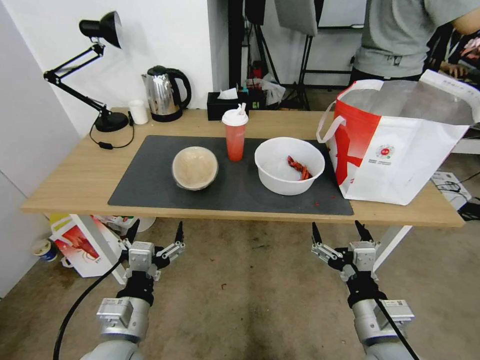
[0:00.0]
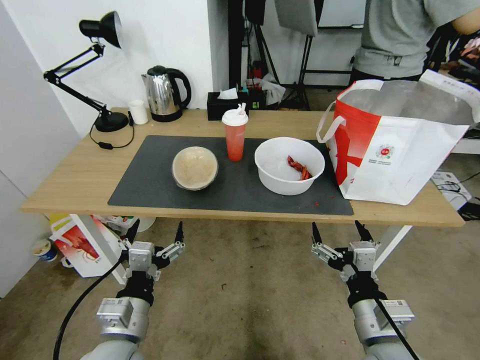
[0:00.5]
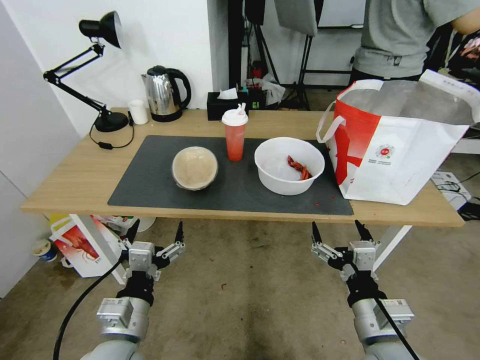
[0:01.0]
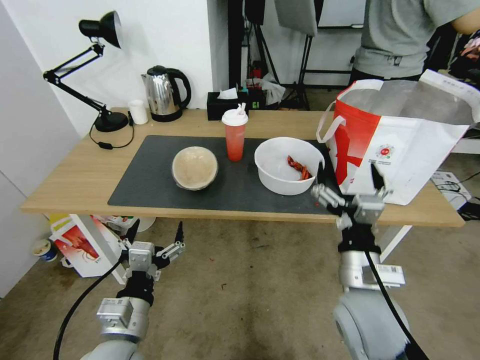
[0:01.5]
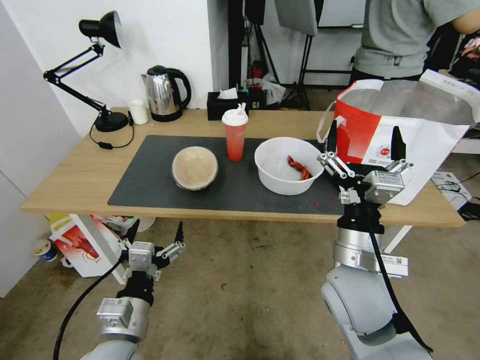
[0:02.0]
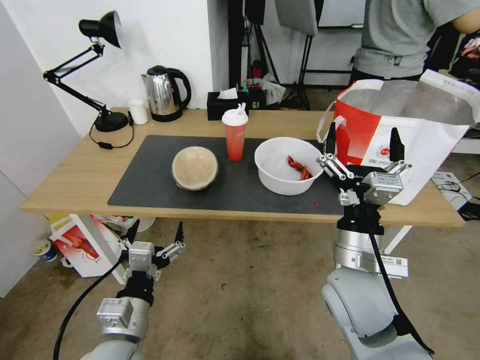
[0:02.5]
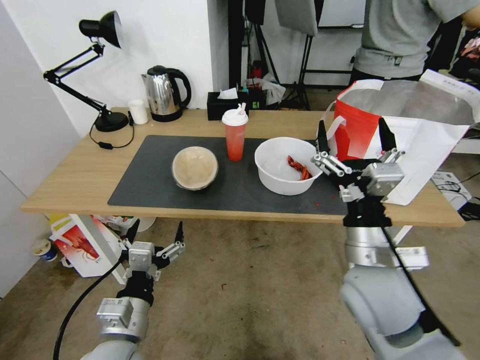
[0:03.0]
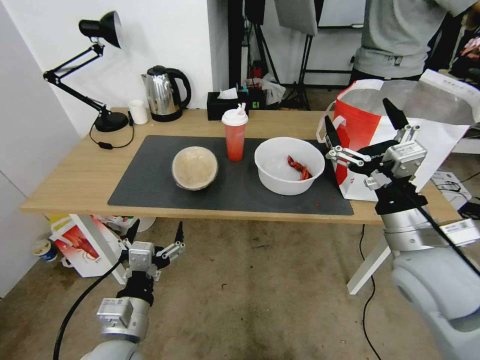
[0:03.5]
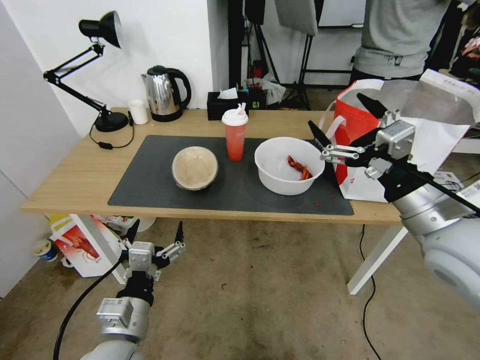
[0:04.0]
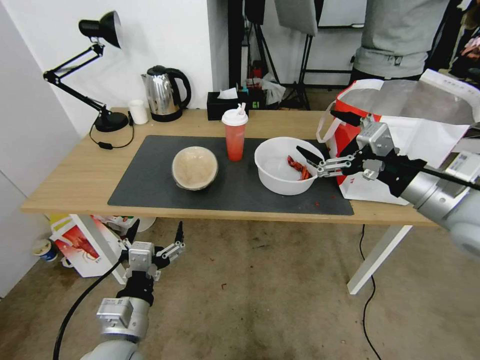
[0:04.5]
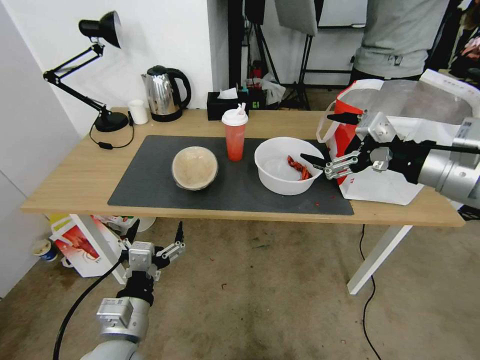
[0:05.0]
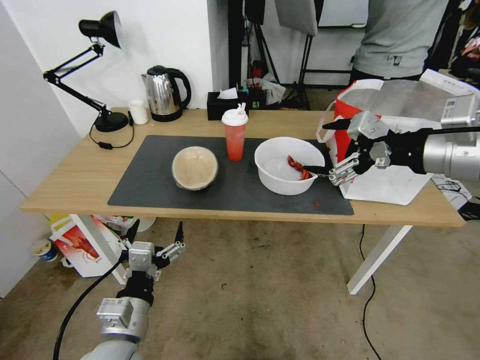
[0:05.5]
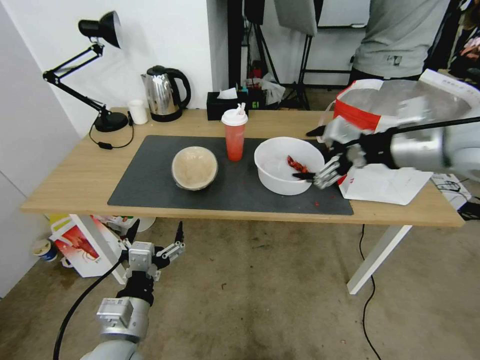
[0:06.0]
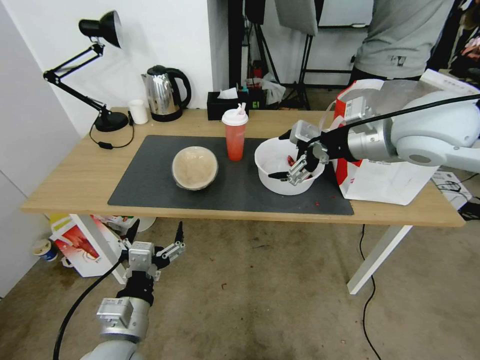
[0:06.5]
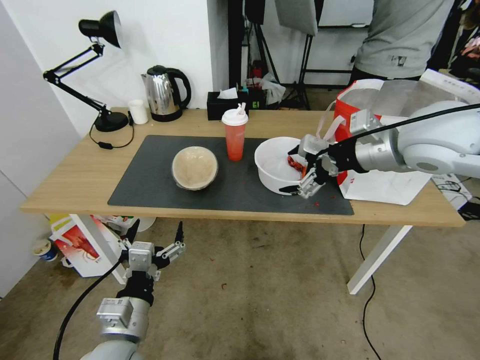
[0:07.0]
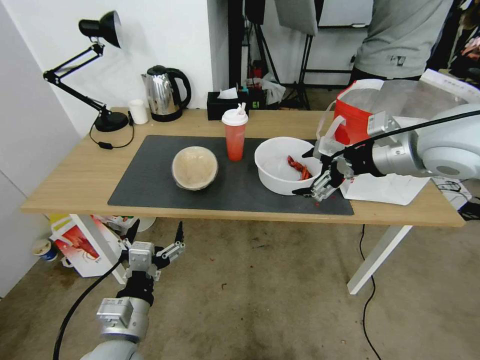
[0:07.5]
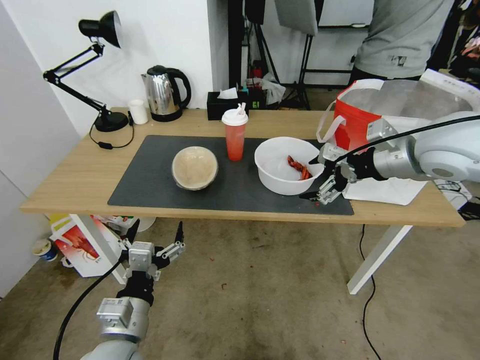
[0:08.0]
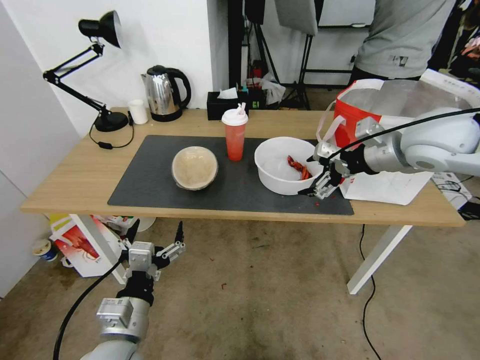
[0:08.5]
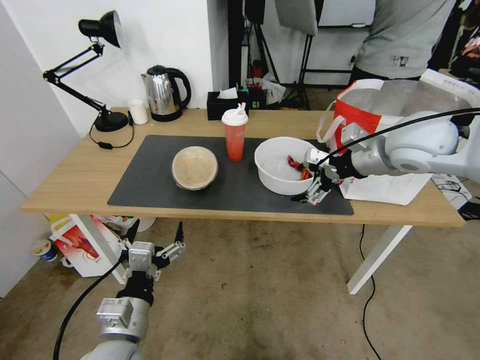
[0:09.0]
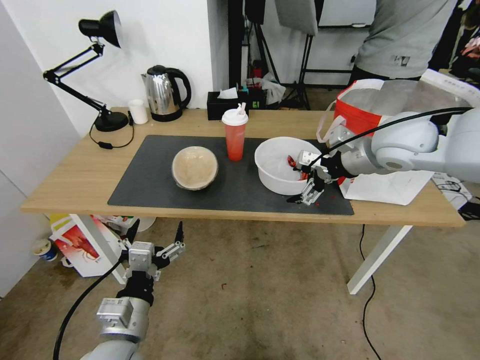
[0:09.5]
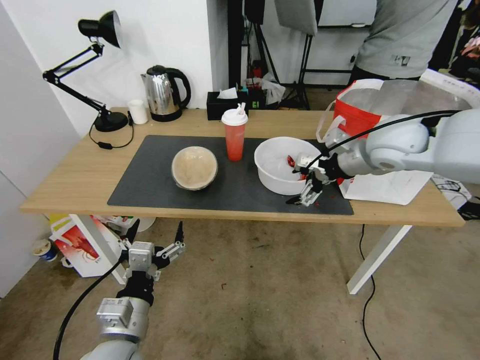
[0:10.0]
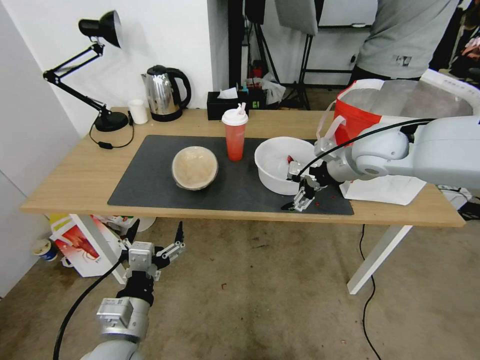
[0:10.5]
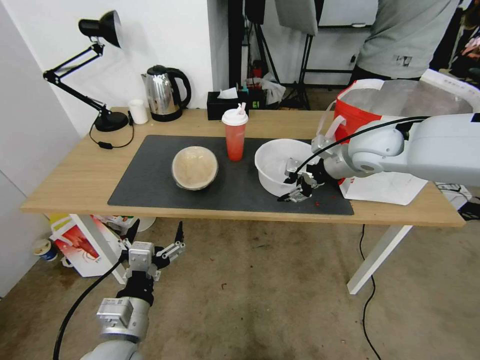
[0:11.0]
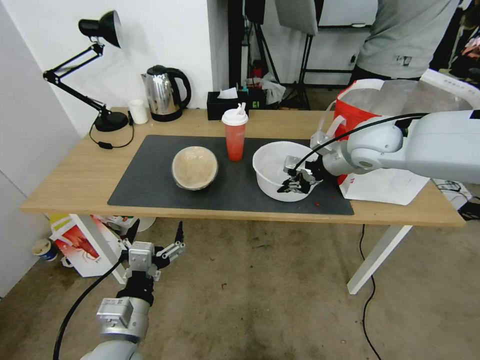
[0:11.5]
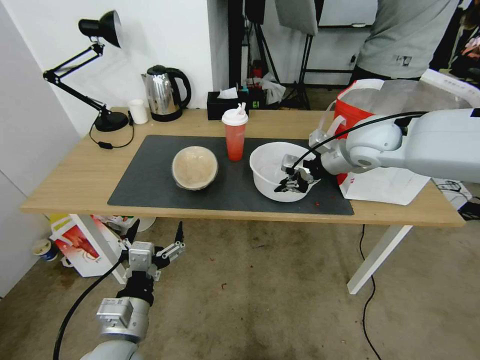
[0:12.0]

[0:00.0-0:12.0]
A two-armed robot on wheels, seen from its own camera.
Task of the whole recording: Pick up the trash from the table and place it into the takeout bag.
2.0 to 4.0 s: The right gripper is displaced to the right and upward by roughly 15 cm.
4.0 to 6.0 s: The right gripper travels upward and forward by about 15 cm.
6.0 to 8.0 s: The right gripper moves forward, approximately 5 cm.
8.0 to 10.0 s: The right gripper goes some 5 cm forward.
10.0 to 12.0 s: The right gripper closes its fingers.

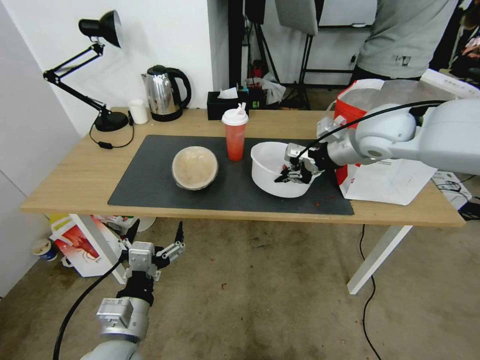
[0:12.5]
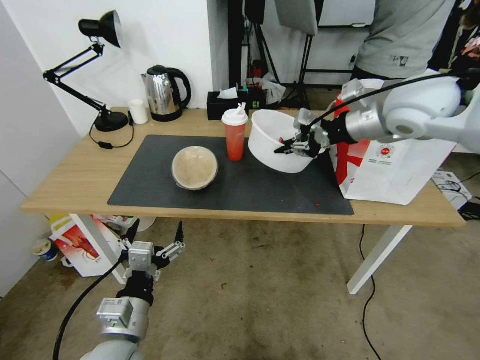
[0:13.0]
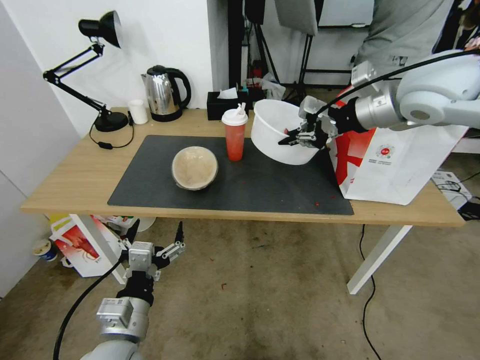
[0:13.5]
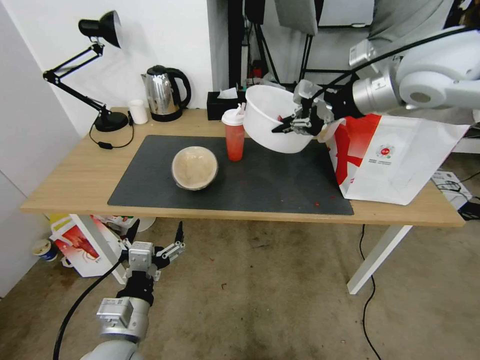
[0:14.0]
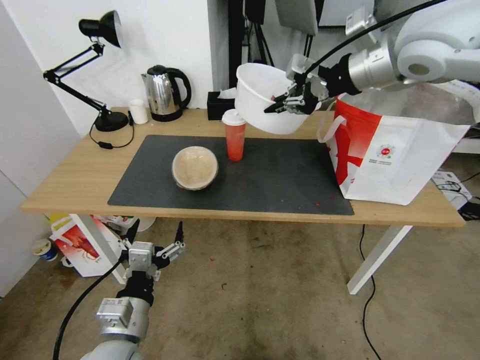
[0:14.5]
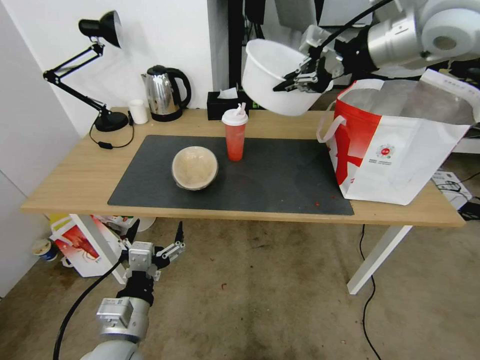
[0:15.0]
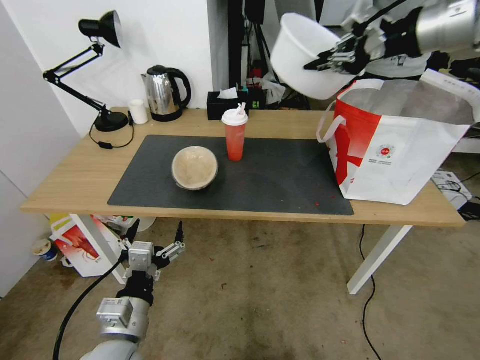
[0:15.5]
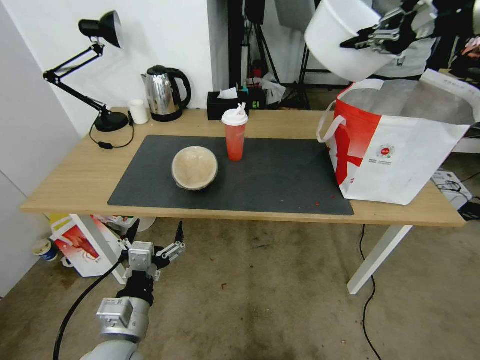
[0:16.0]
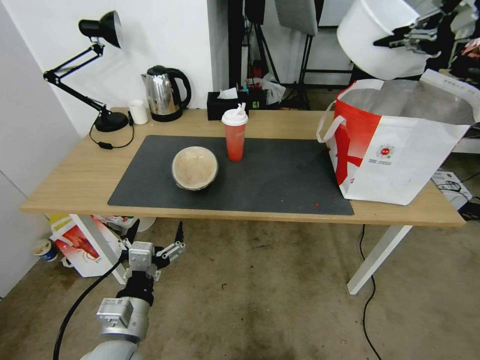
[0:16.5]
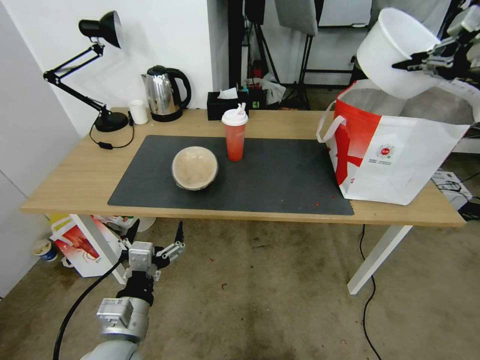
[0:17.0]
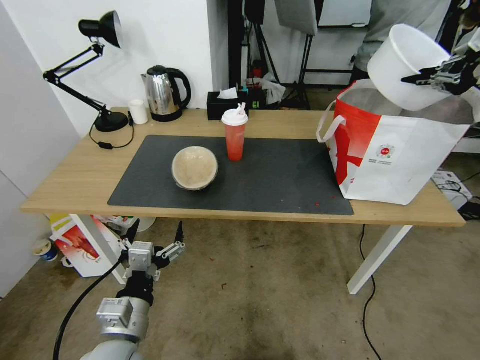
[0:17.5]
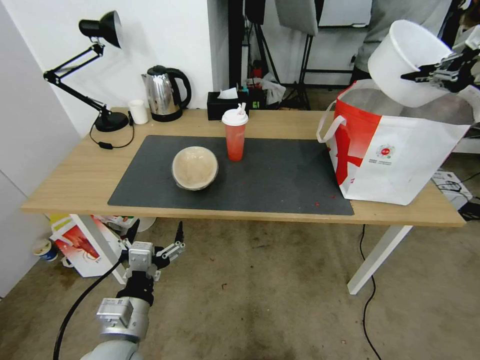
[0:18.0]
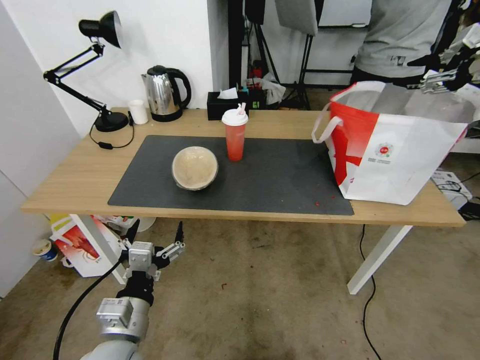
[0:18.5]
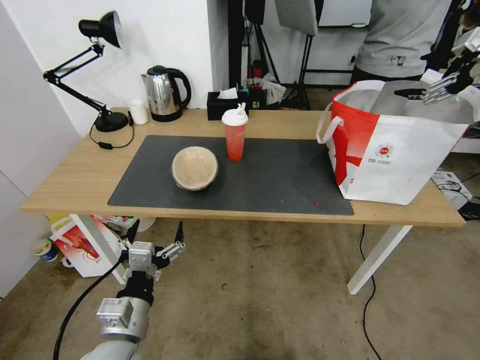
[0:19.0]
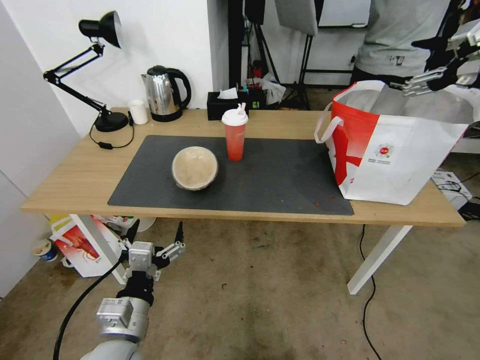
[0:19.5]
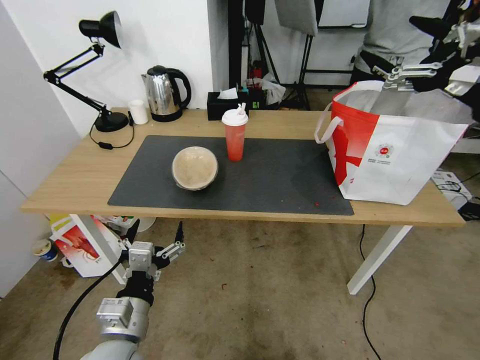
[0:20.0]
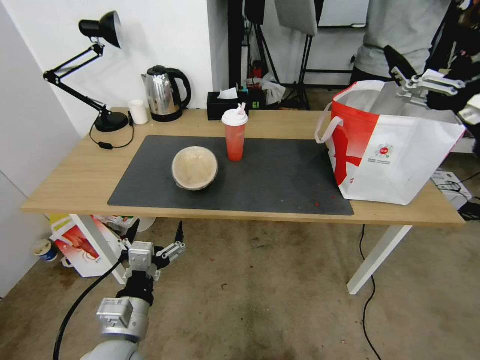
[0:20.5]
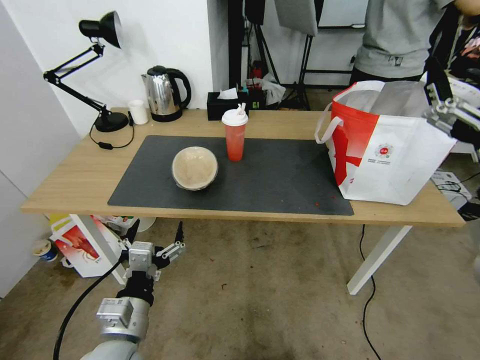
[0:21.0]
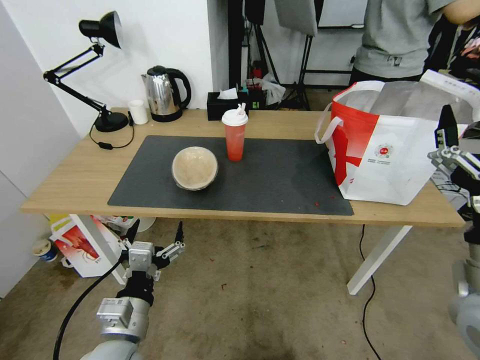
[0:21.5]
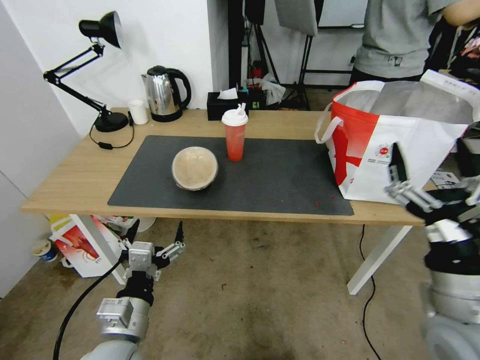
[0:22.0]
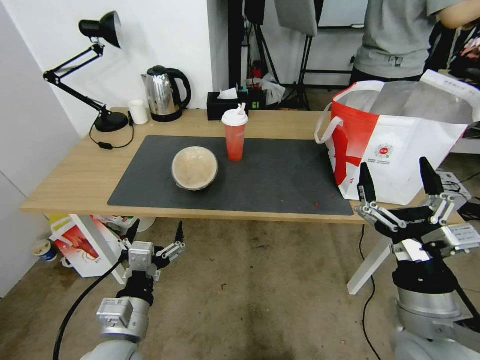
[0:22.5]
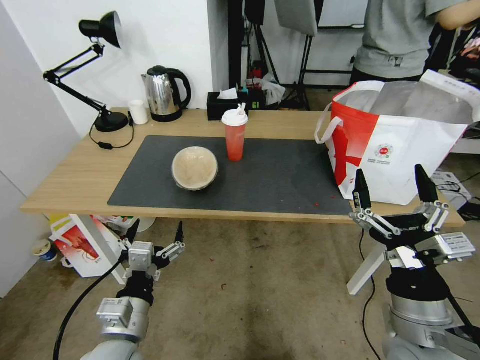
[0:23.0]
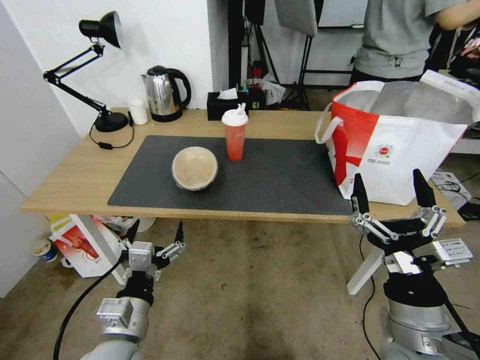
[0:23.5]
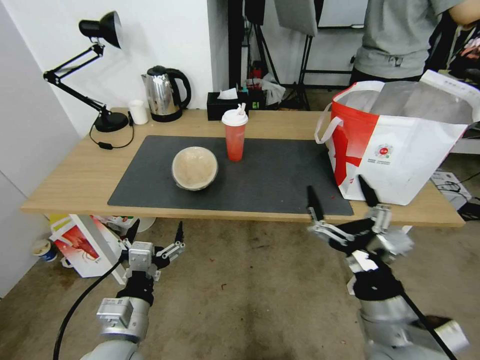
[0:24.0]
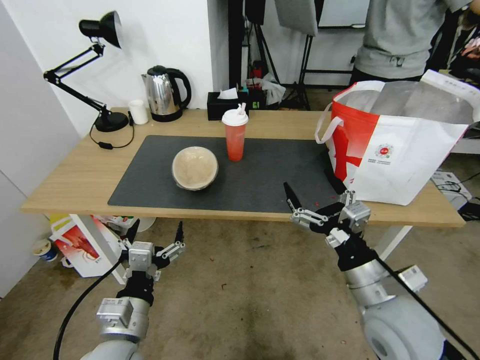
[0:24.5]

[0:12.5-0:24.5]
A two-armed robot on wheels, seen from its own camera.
Task of the whole recording: Pick up the trash from the table and place it into the takeout bag.
12.5 to 14.5 s: The right gripper goes some 15 cm upward.
14.5 to 16.5 s: The right gripper is displaced to the right by approximately 20 cm.
16.5 to 18.5 s: The right gripper moves to the right and downward, roughly 10 cm, and opens its fingers.
18.5 to 20.5 s: The right gripper heads backward, to the left and downward, covering roughly 25 cm, and opens its fingers.
20.5 to 22.5 s: The right gripper shifts approximately 25 cm downward, backward and to the left.
22.5 to 24.5 s: The right gripper moves some 5 cm.

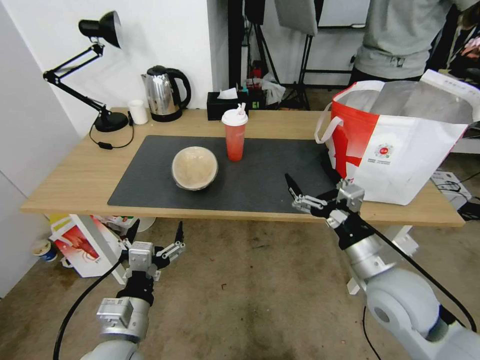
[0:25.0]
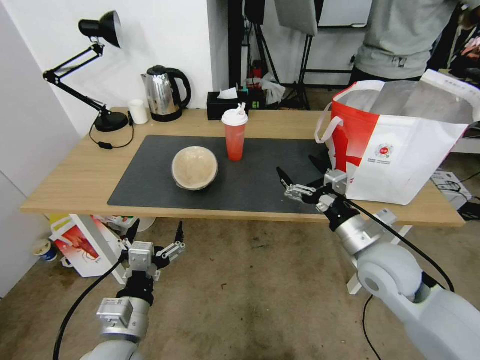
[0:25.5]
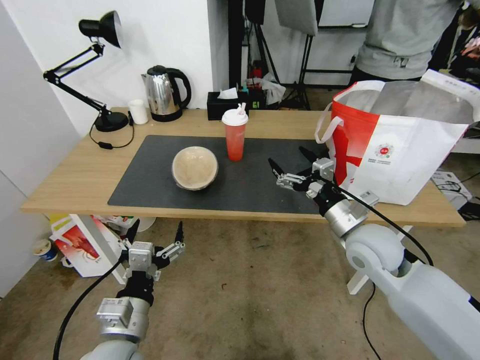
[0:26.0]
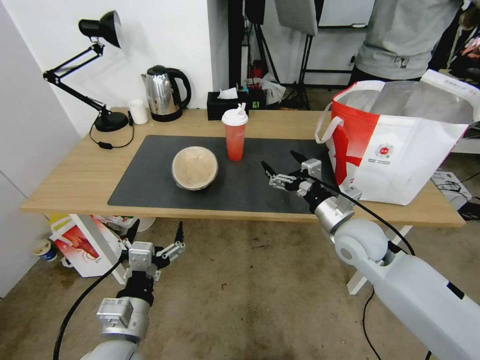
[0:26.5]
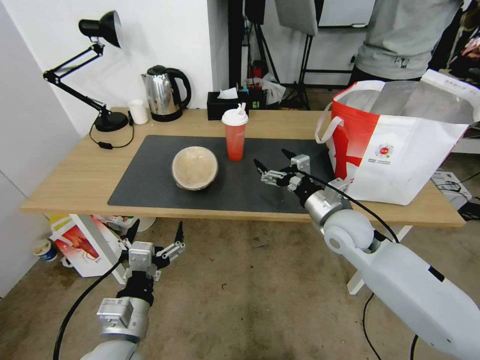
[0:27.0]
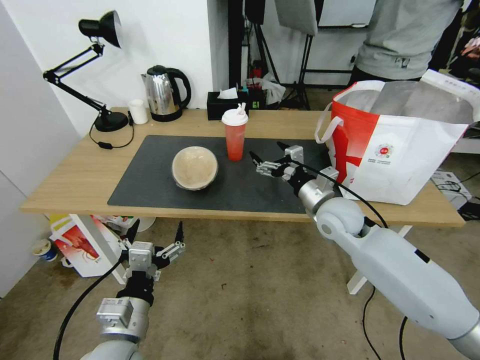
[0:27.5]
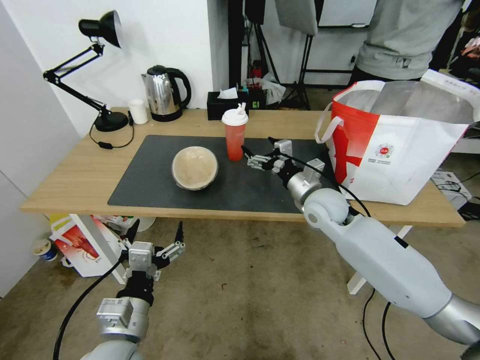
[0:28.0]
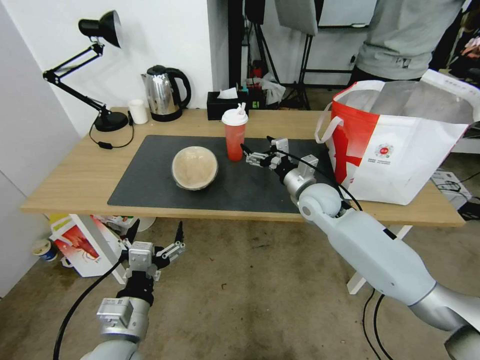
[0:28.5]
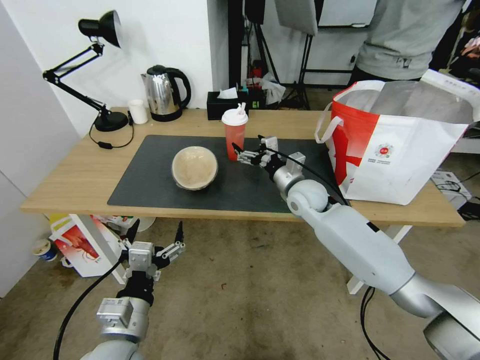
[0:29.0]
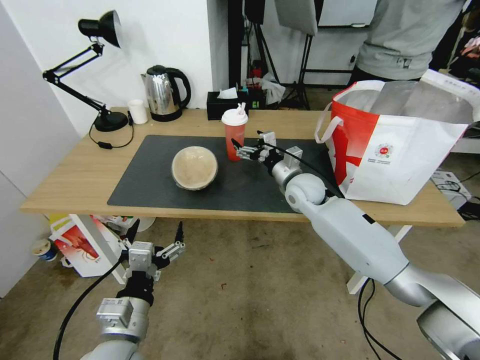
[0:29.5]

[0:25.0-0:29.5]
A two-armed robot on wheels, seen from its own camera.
Task of the whole recording: Pick up the trash from the table and place it into the takeout bag.
25.0 to 27.0 s: The right gripper is displaced forward by some 15 cm.
27.0 to 29.5 s: The right gripper travels forward and to the left by about 15 cm.
